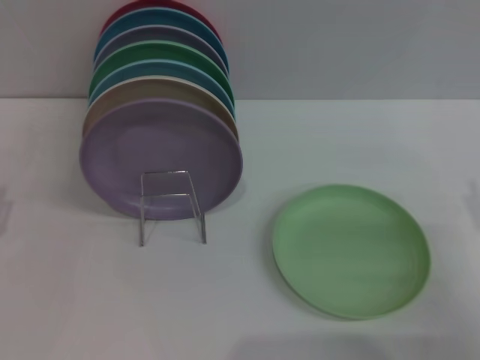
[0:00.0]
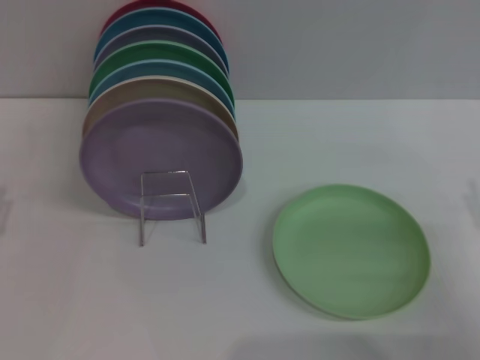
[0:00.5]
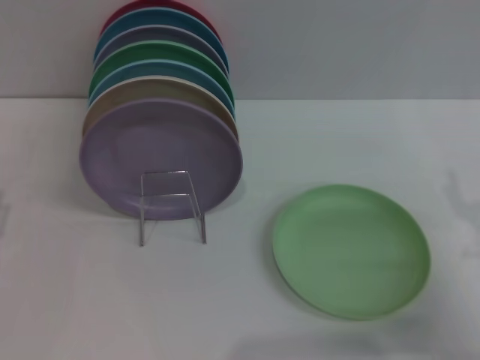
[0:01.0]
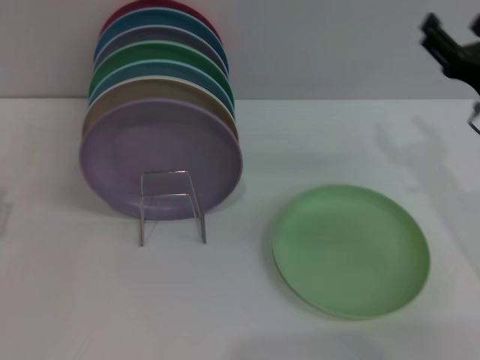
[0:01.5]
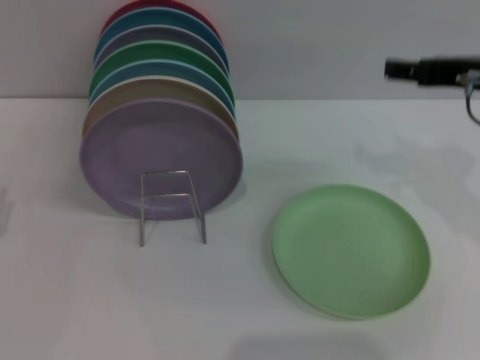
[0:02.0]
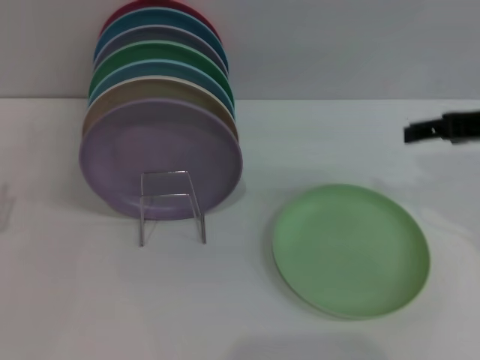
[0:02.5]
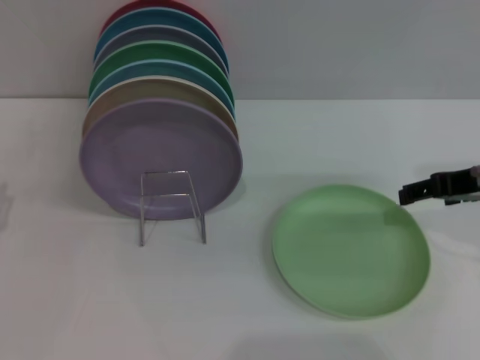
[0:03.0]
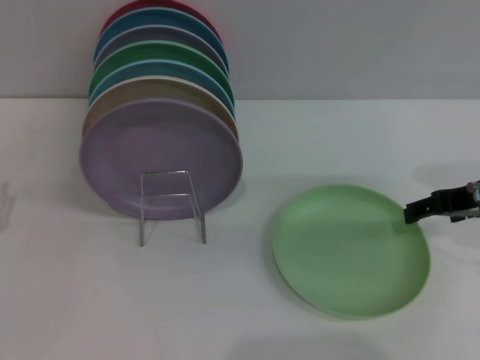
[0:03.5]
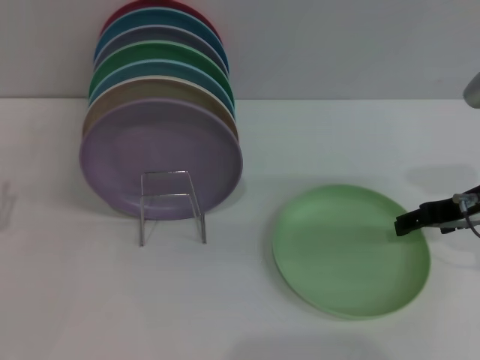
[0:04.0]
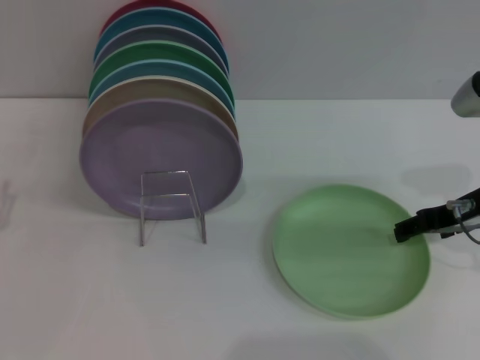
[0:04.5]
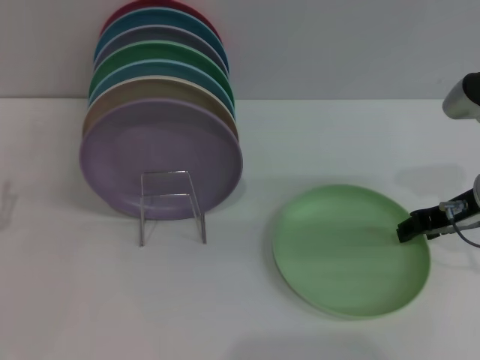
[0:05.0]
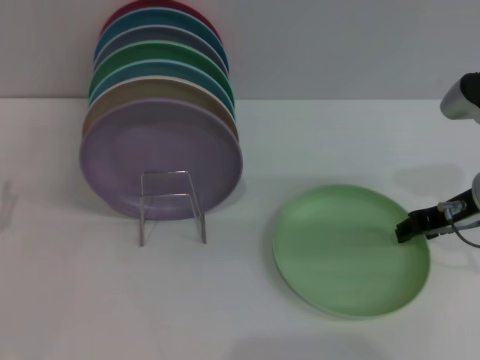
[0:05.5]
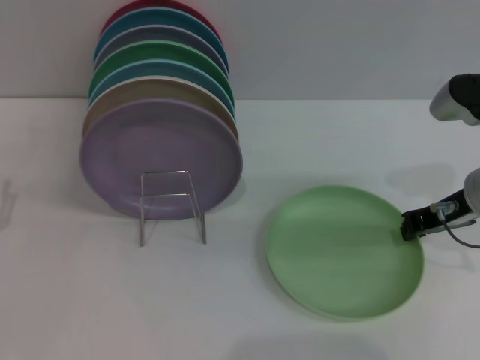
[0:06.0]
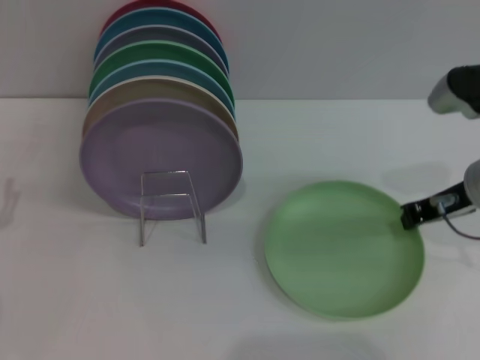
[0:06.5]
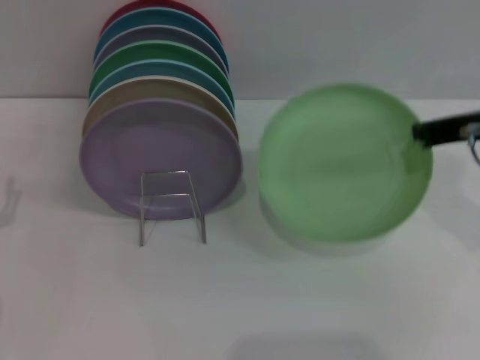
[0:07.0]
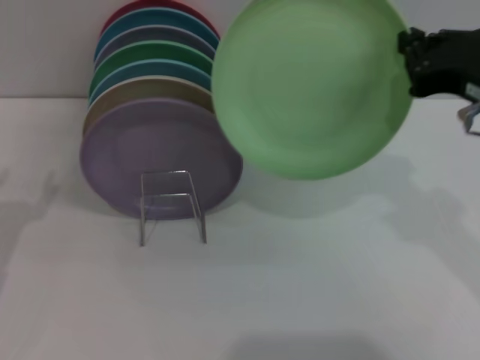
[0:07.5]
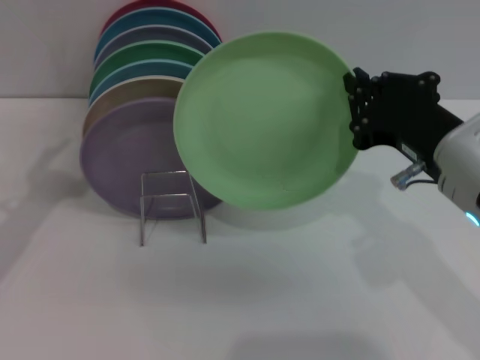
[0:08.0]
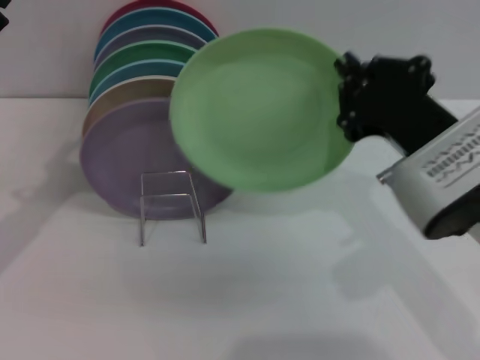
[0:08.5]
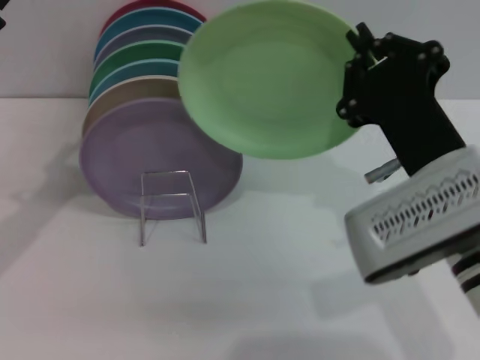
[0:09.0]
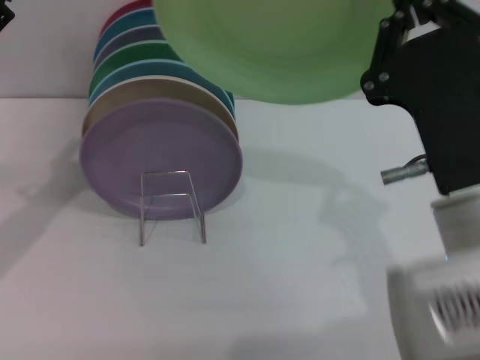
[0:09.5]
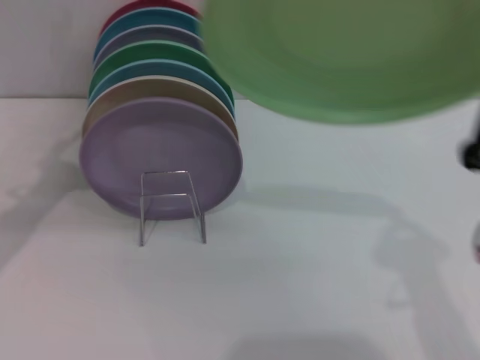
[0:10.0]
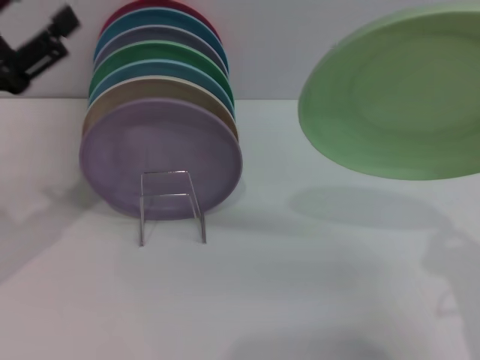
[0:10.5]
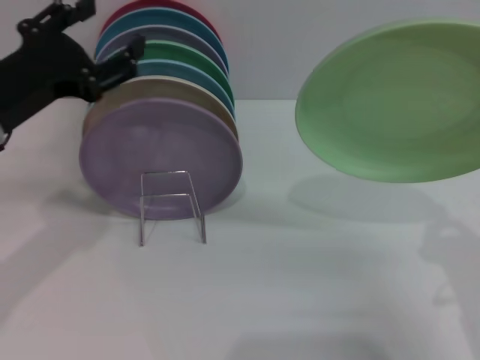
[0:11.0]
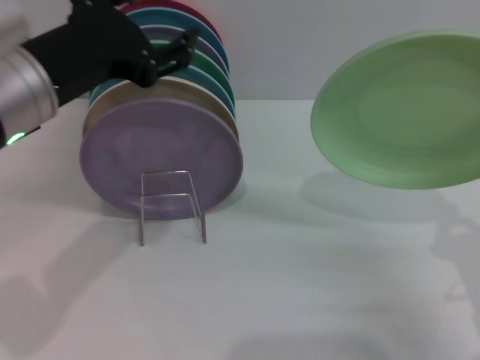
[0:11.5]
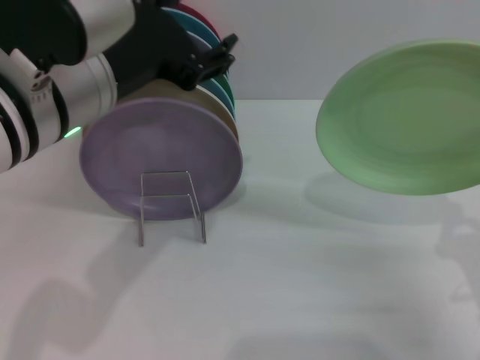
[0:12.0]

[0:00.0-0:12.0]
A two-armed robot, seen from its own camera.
Task of the whole recording: Grip the plate with one hand, pass it to the other, then set it on the shelf.
Step, 0:00.0 to 0:07.0: Pick up the plate with the right gripper.
0:00.0 to 0:02.0: The right gripper heads upward and forward, covering approximately 20 cm.
0:02.0 to 0:04.0: The right gripper moves downward, roughly 10 cm.
0:04.0 to 0:06.0: The right gripper closes up.
0:06.0 to 0:08.0: The right gripper moves backward and to the left, approximately 10 cm; the left gripper is displaced upward by approximately 10 cm.
0:08.0 to 0:10.0: The right gripper is displaced backward by approximately 10 cm.
0:10.0 to 0:12.0: The left gripper heads to the right and upward, covering some 20 cm, while the right gripper moves to the right and downward, roughly 10 cm.

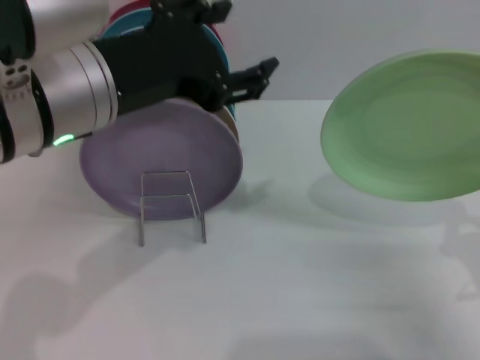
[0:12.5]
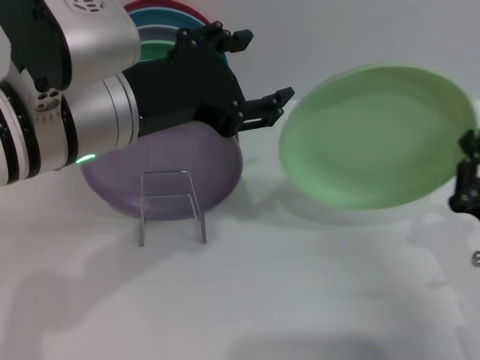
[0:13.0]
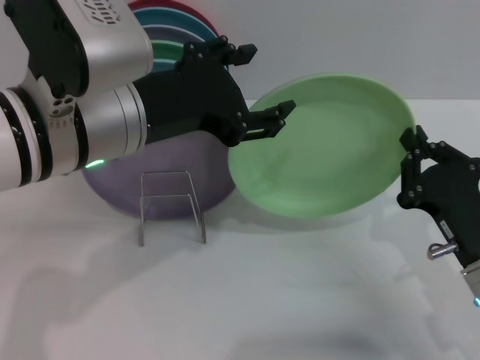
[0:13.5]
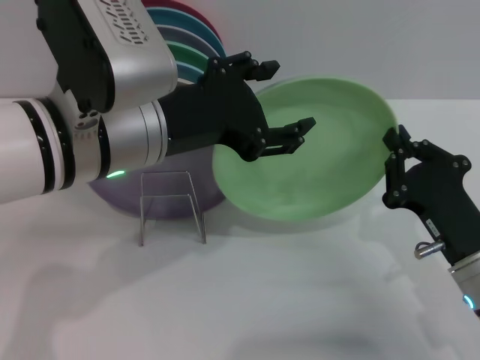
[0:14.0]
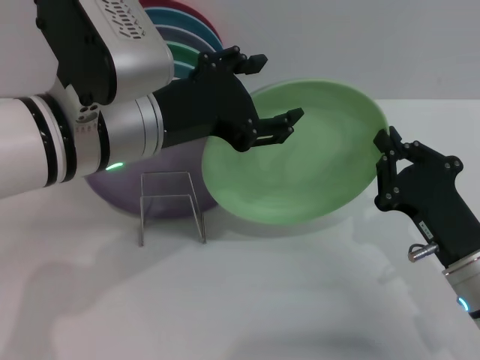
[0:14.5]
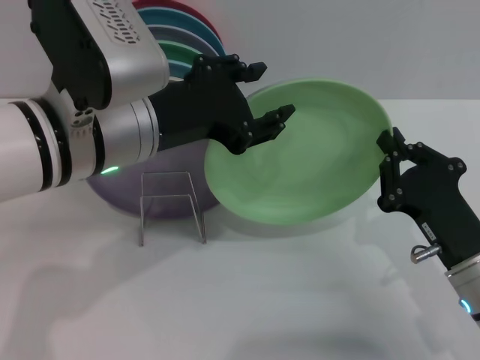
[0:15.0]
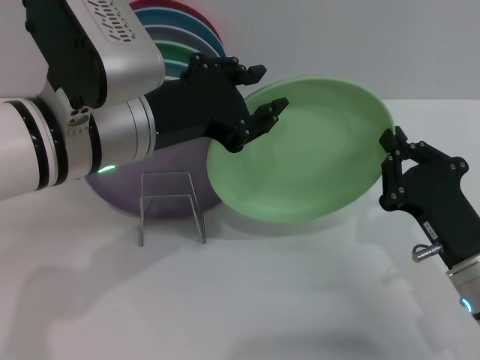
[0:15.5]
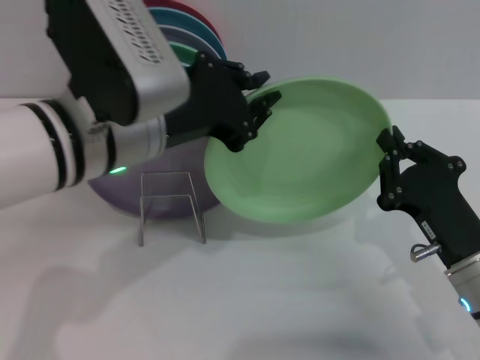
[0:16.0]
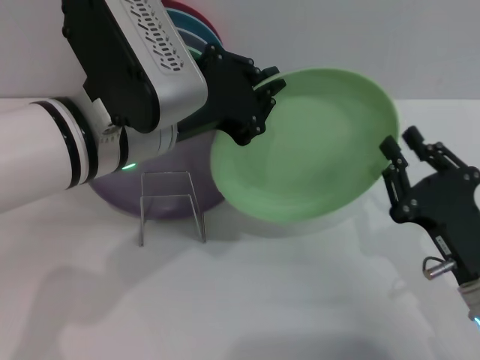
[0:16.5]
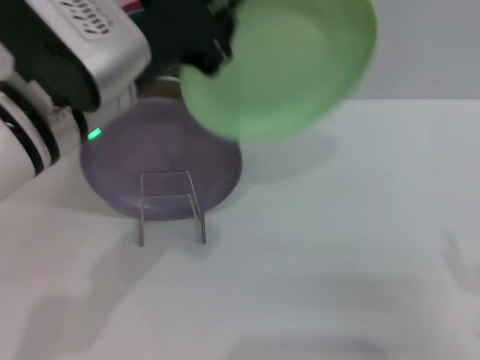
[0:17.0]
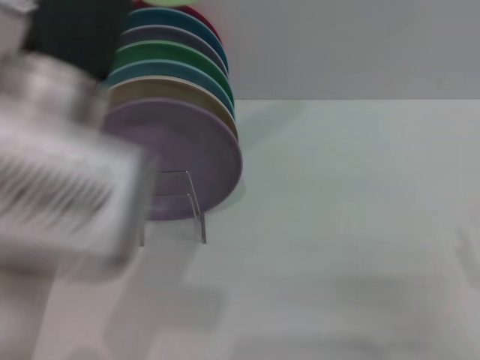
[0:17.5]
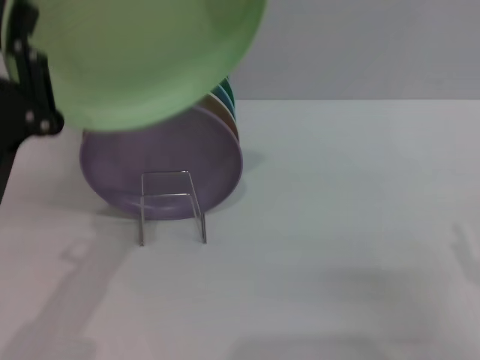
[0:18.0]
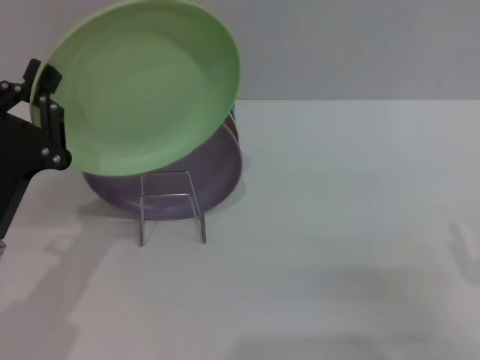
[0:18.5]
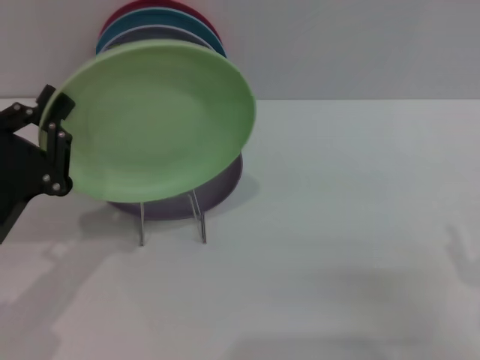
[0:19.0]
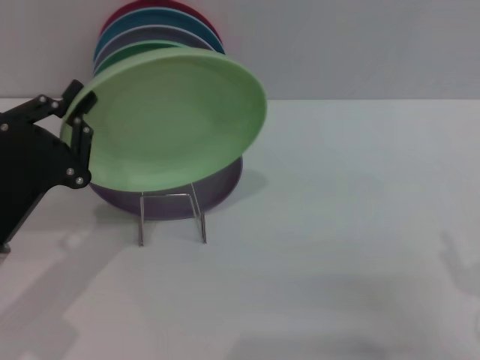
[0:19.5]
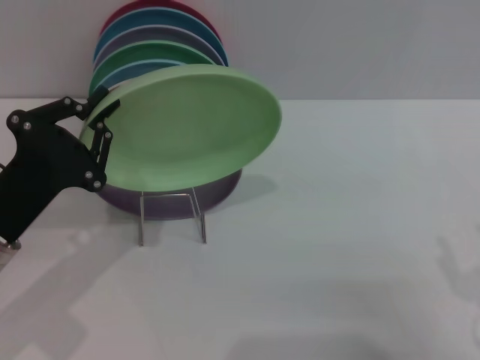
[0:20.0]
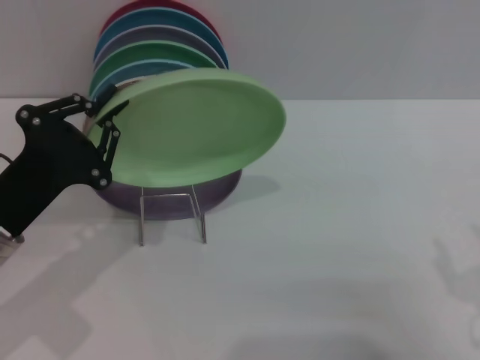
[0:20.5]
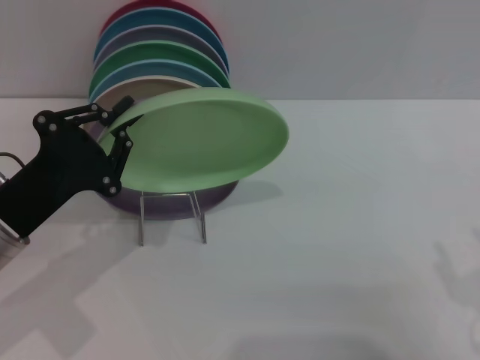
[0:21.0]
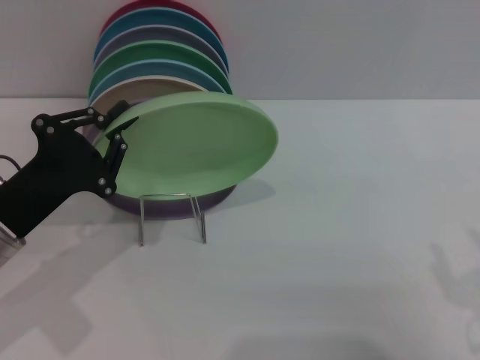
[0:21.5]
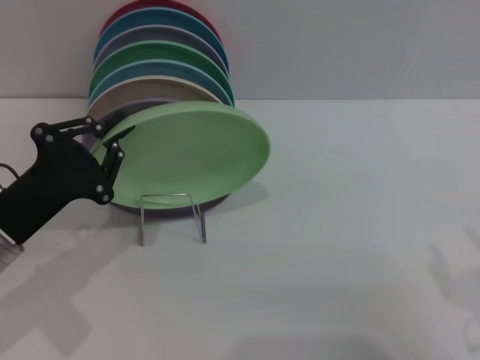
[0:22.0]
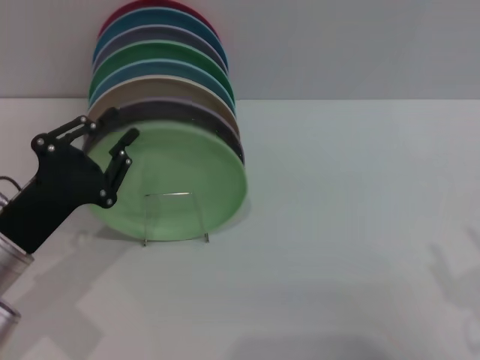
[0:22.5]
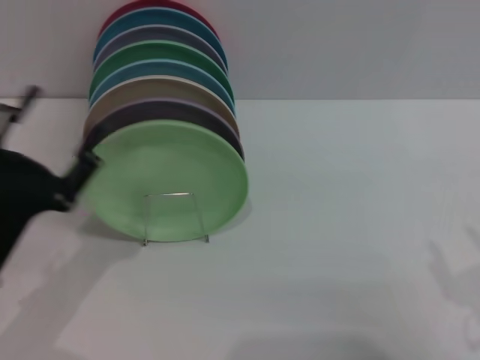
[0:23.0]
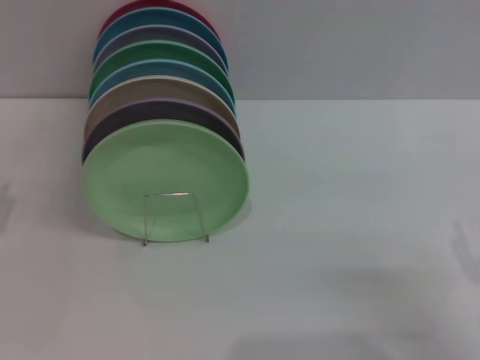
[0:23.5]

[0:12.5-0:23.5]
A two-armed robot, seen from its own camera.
Task of the whole recording: Grip the plate with one hand, pass it to the other, then set it on the shelf.
Step, 0:12.5 to 0:16.5: Pass the plate from the right gripper to the left gripper.
Step, 0:17.5 to 0:22.5: Place the plate on the shelf with the left gripper.
0:12.5 to 0:14.5: The right gripper heads to the left, covering roughly 5 cm.
0:14.5 to 0:16.0: The left gripper closes.
0:16.0 to 0:18.0: The left gripper is displaced to the left, downward and backward by roughly 15 cm, and closes its fingers. The right gripper goes about 10 cm backward and to the right, and opens its fingers.
0:18.0 to 0:20.0: The left gripper changes place by about 5 cm.
0:20.0 to 0:21.5: There are only small adjustments of the grippers.
0:21.5 to 0:23.5: The left gripper travels to the left by about 10 cm, and opens its fingers.

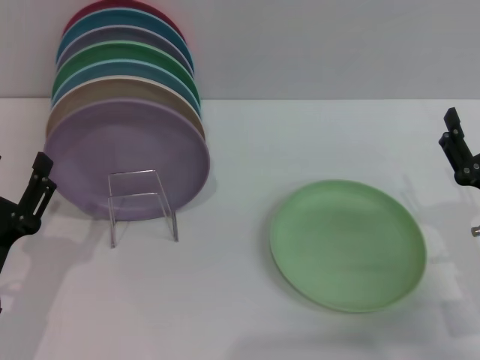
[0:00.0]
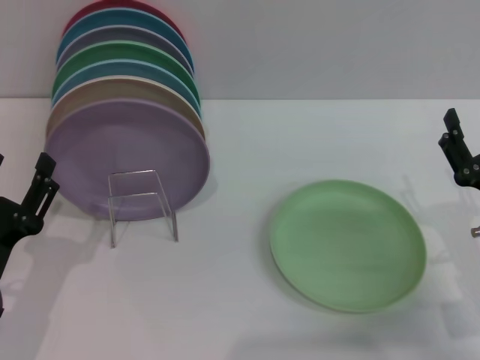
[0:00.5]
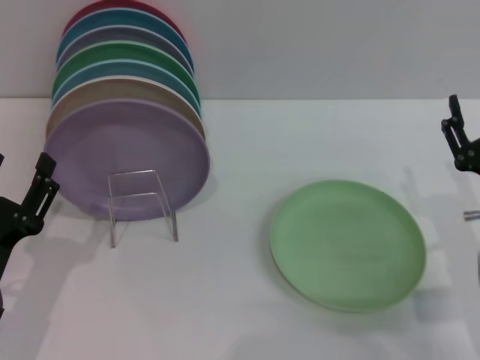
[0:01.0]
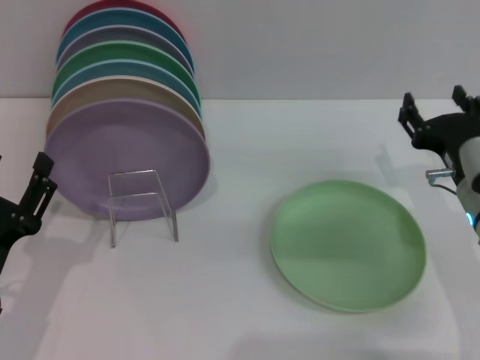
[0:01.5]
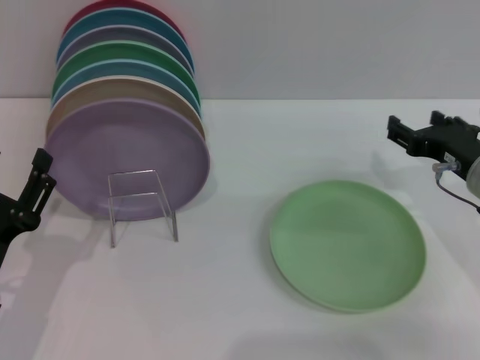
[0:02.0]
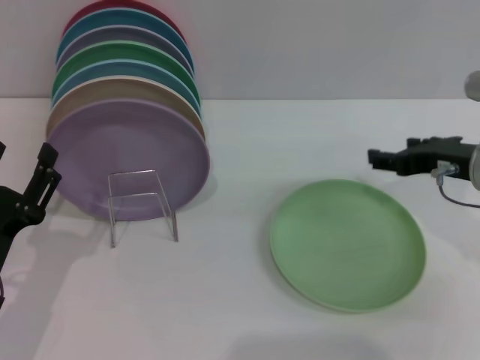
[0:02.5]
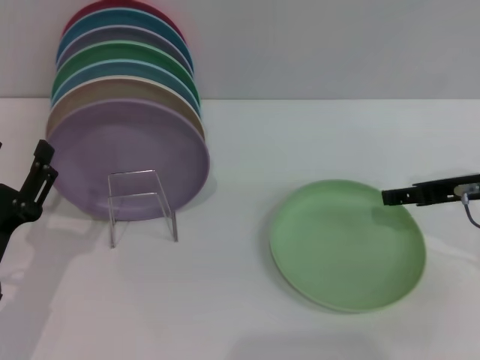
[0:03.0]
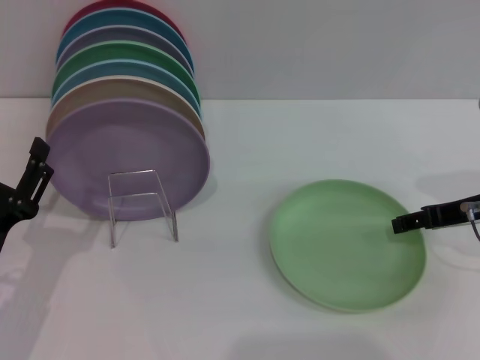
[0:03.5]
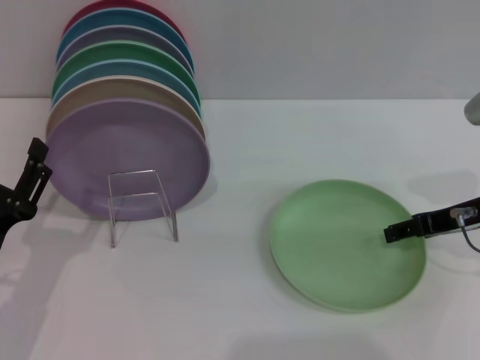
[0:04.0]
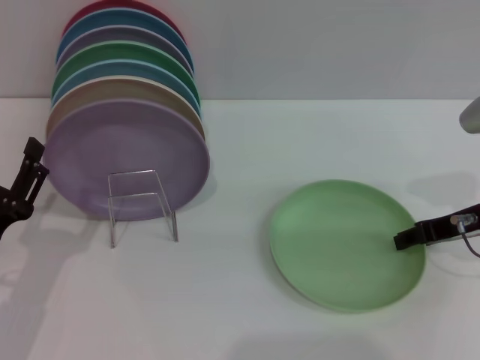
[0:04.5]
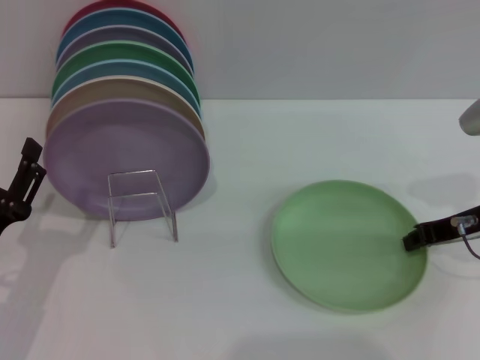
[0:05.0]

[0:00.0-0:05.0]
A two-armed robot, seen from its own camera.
Task of the whole recording: Grip the plate with one hand, pass it to the other, then set it on the shelf.
0:00.0 to 0:02.5: The right gripper heads upward and forward, covering approximately 15 cm.
0:02.5 to 0:05.0: The right gripper closes its fingers.
